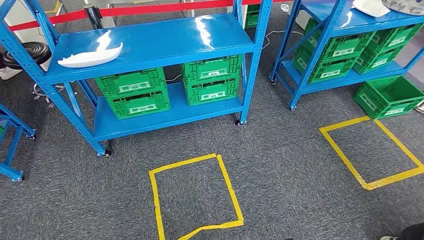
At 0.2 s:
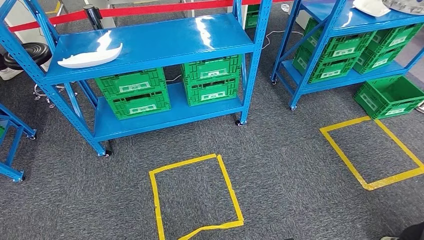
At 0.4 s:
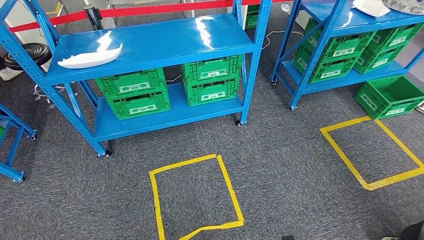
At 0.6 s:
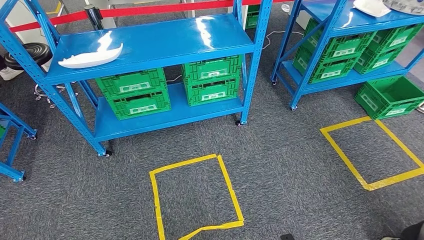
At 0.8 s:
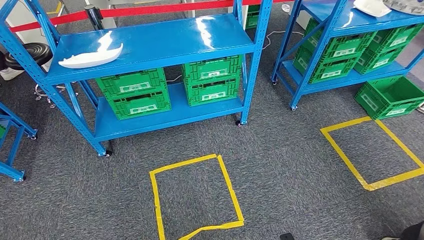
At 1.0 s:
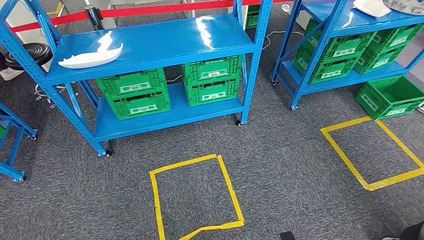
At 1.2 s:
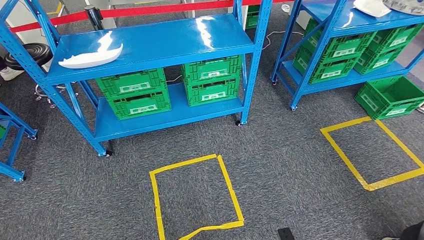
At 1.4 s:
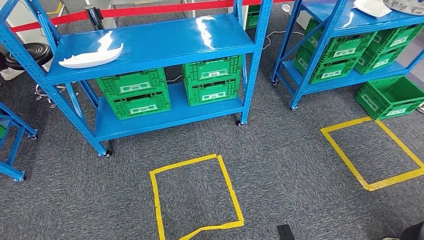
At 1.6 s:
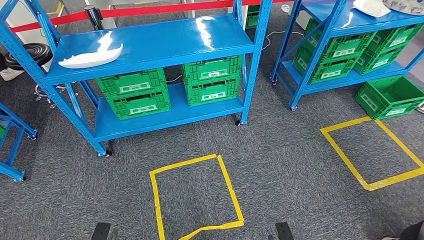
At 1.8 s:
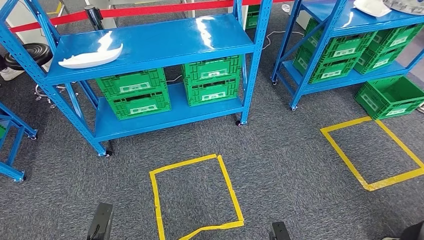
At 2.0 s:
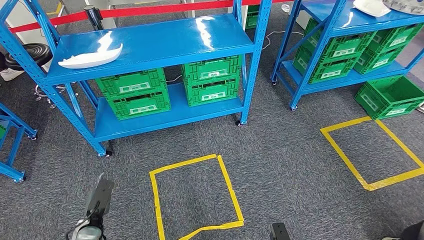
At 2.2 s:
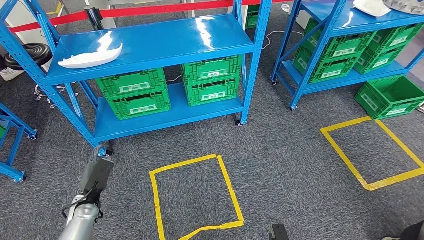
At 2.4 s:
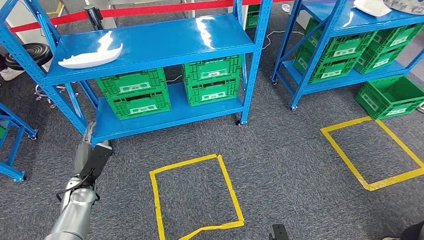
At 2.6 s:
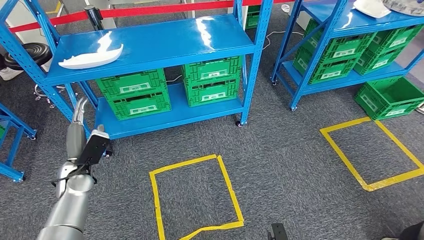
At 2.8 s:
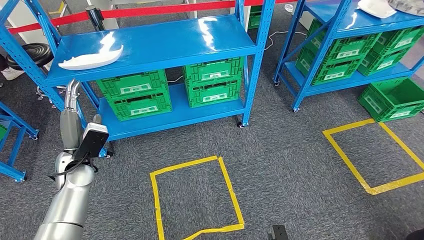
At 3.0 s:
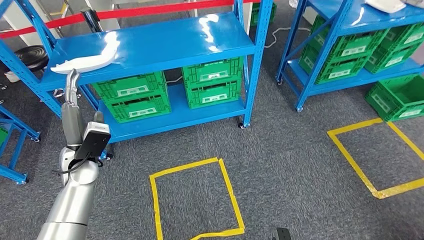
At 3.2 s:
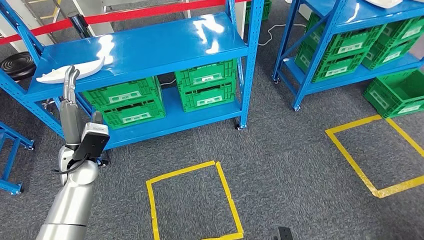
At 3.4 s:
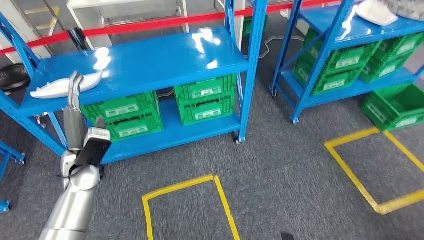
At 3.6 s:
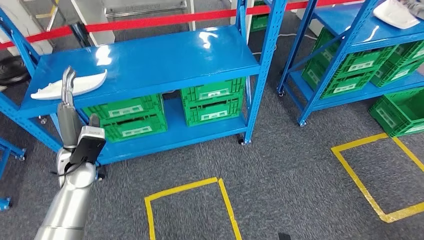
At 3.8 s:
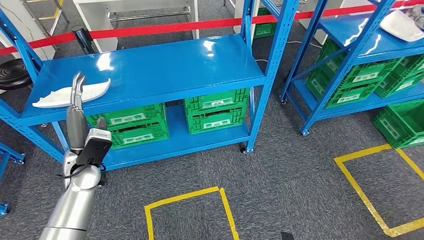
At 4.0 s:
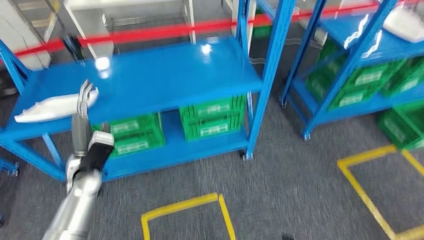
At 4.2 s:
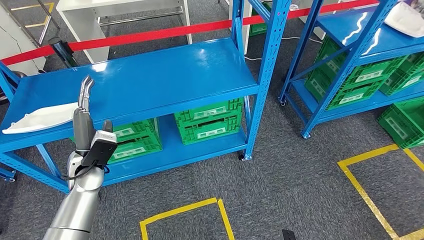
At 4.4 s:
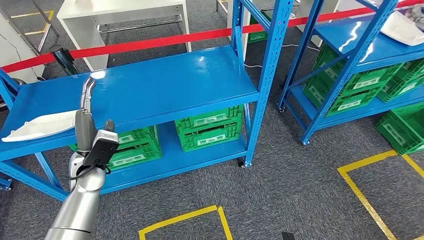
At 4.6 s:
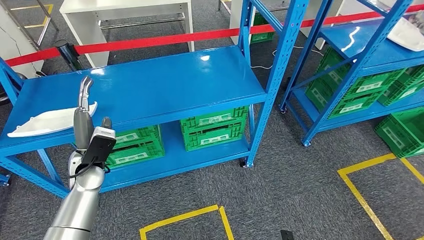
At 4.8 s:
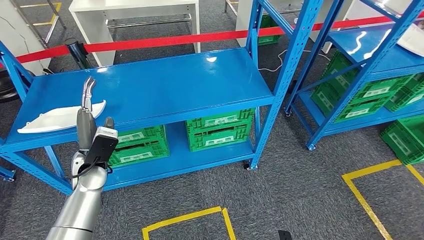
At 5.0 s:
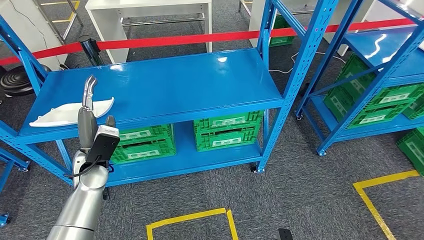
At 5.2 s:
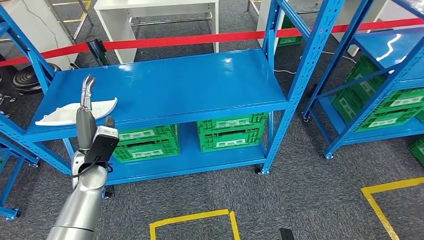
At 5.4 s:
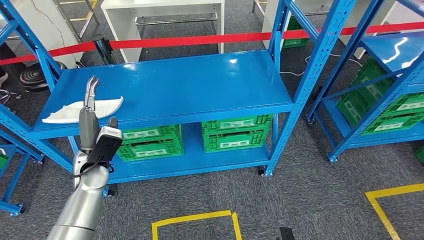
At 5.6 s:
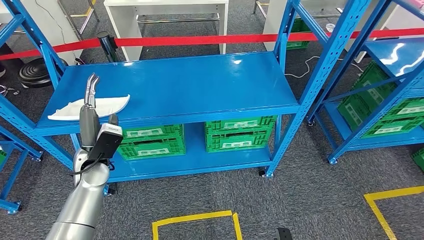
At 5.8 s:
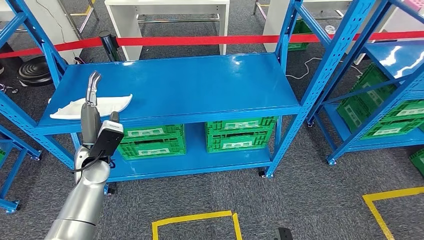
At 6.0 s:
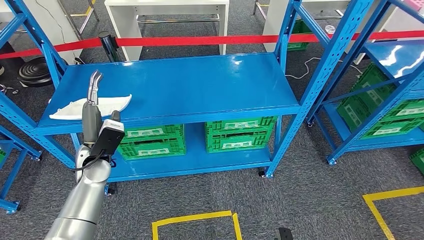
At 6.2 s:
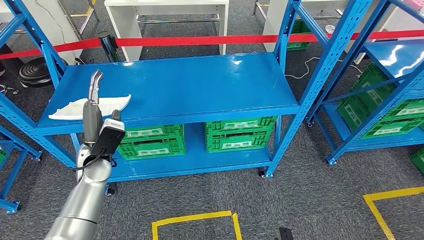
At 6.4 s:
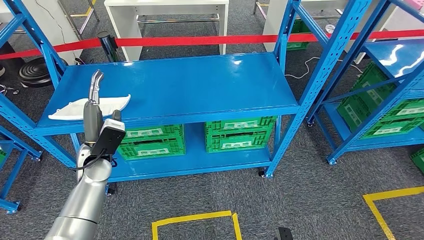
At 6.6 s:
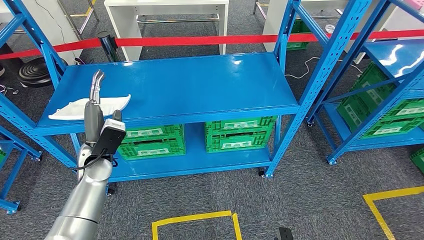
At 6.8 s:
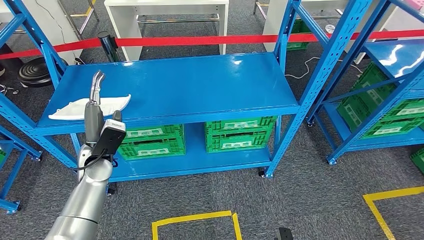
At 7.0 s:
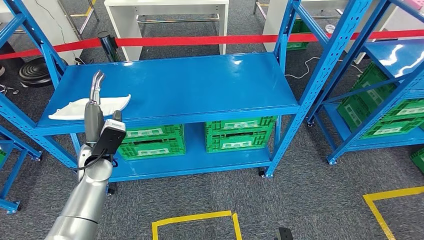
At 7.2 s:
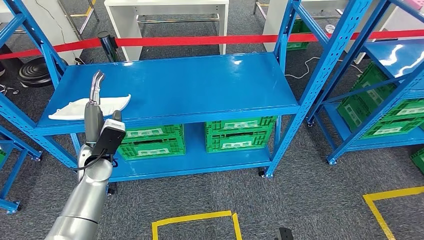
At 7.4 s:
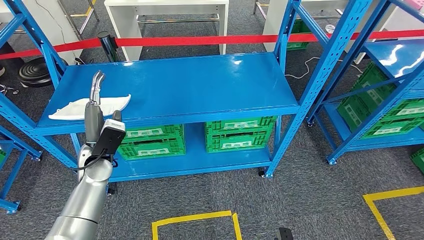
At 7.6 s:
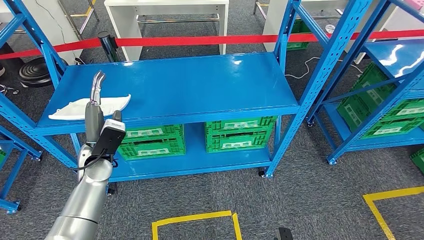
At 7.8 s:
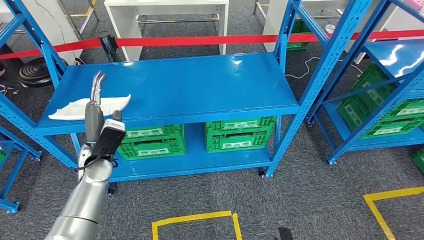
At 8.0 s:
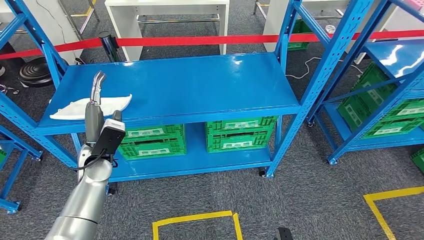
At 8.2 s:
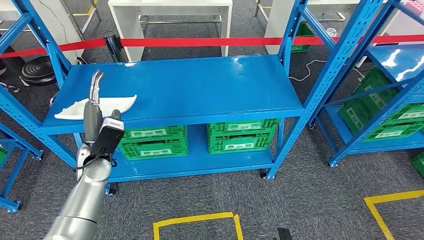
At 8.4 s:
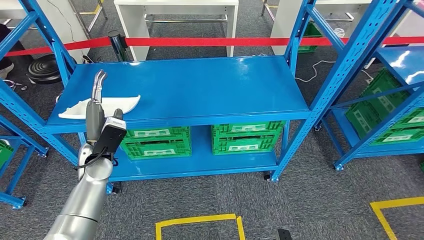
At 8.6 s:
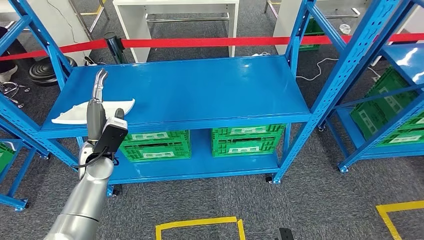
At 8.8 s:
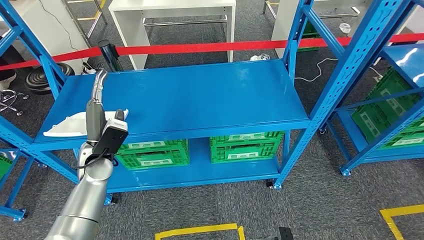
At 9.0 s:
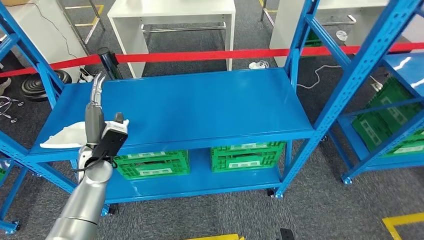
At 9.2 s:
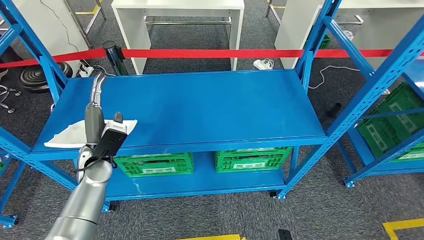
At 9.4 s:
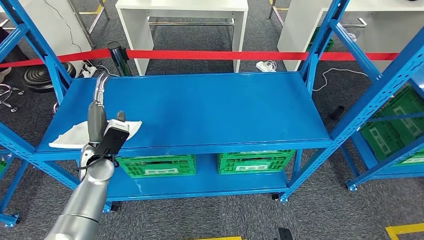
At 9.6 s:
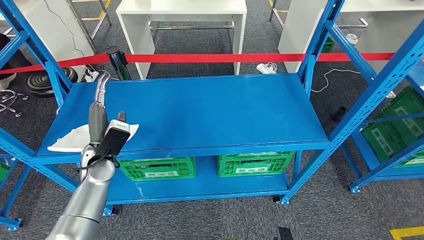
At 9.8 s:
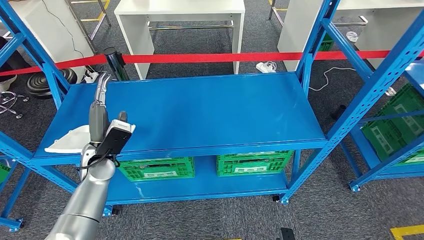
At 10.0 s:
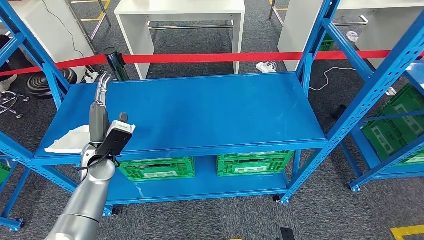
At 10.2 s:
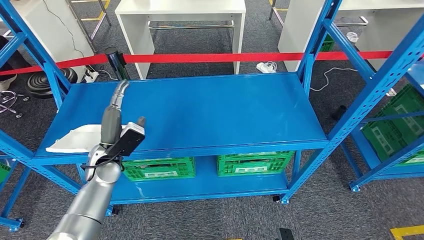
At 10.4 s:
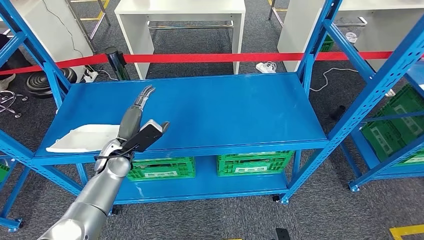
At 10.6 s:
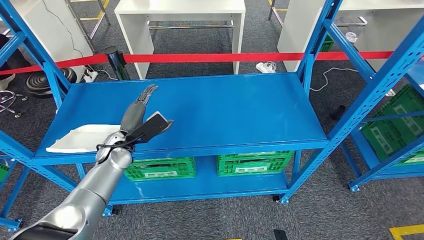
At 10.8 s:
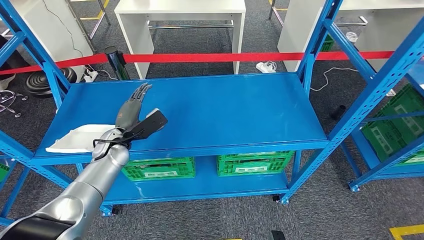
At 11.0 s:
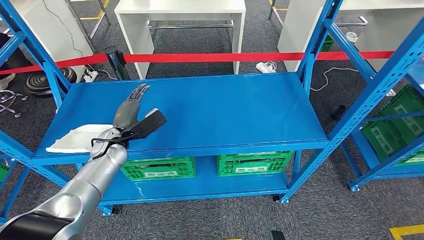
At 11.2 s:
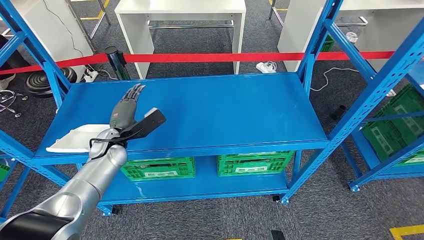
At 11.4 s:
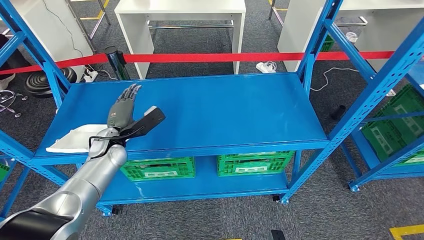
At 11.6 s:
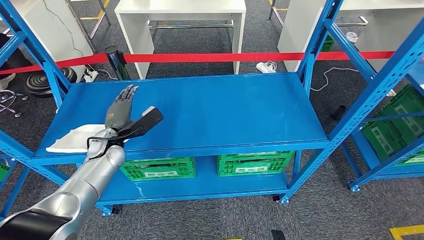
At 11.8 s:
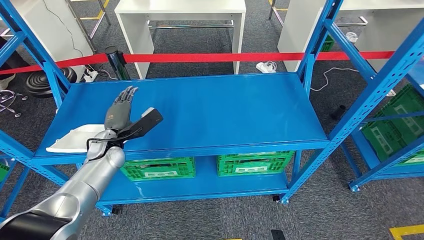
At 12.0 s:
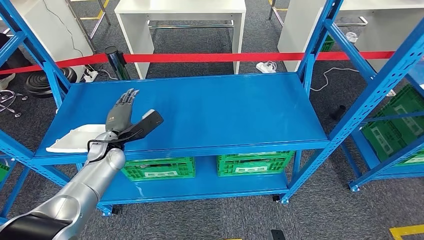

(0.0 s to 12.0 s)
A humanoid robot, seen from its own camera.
6.0 s - 7.6 s: Both hands stay about where they are.

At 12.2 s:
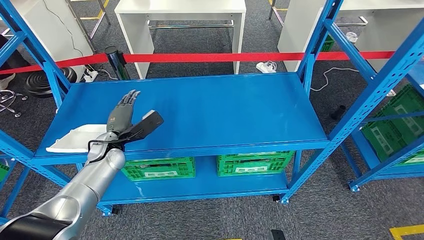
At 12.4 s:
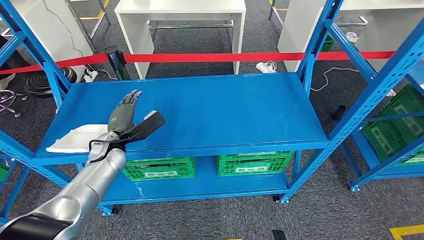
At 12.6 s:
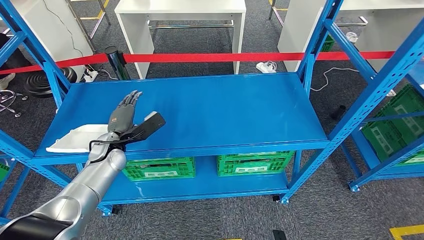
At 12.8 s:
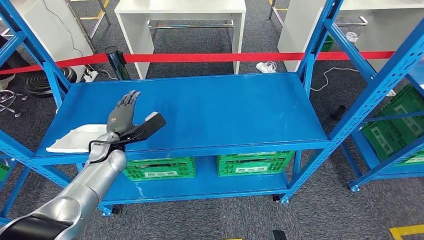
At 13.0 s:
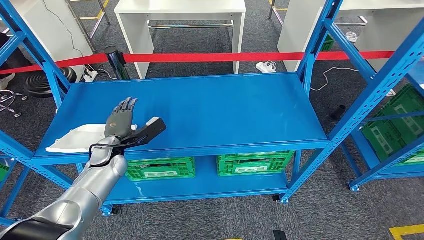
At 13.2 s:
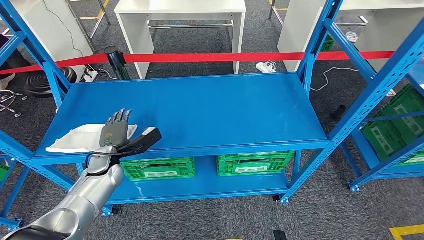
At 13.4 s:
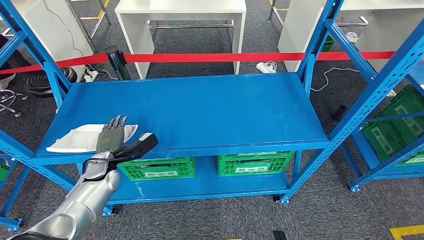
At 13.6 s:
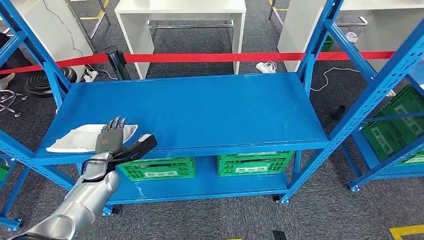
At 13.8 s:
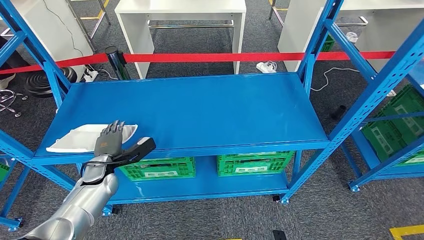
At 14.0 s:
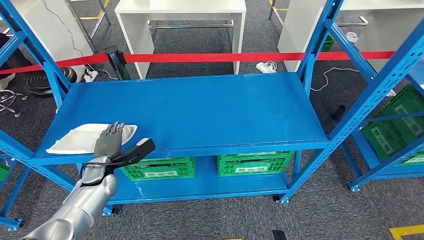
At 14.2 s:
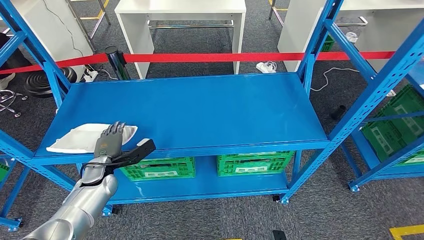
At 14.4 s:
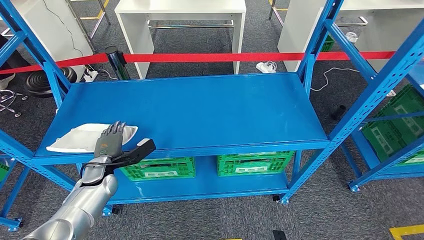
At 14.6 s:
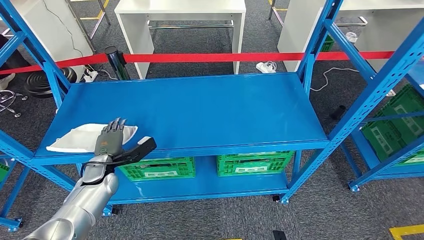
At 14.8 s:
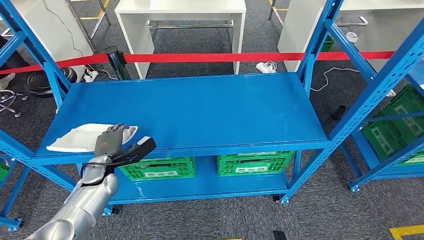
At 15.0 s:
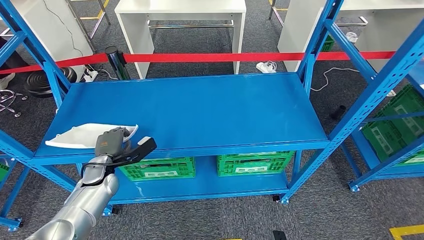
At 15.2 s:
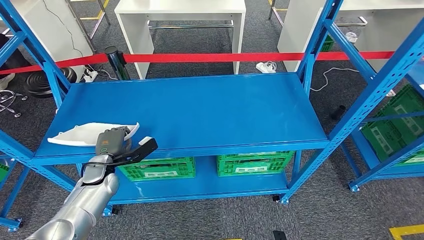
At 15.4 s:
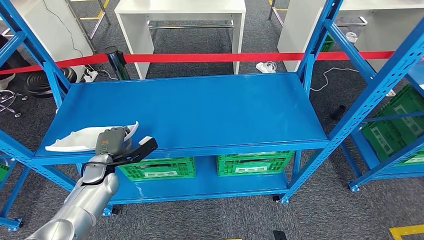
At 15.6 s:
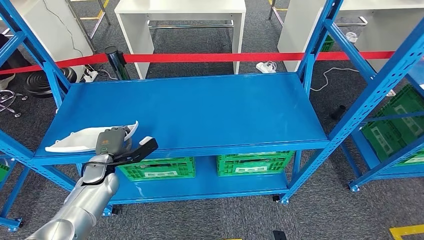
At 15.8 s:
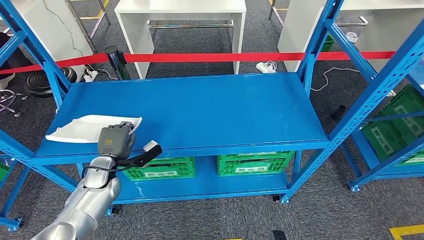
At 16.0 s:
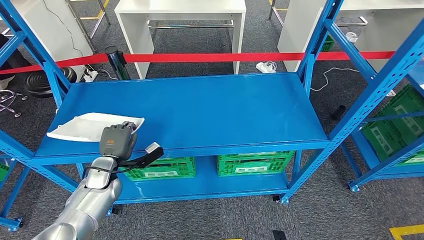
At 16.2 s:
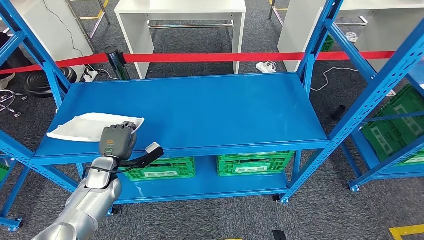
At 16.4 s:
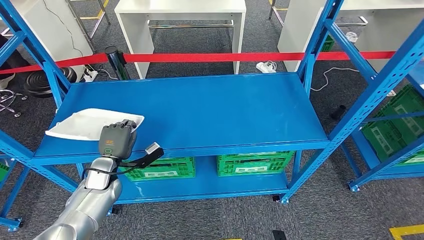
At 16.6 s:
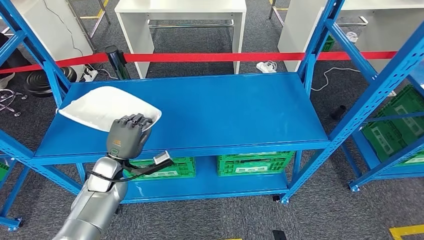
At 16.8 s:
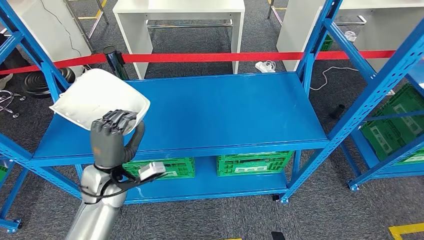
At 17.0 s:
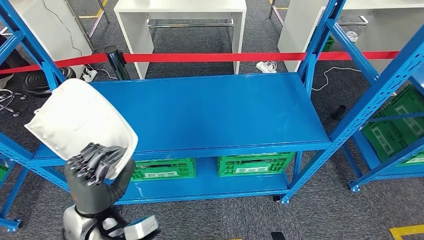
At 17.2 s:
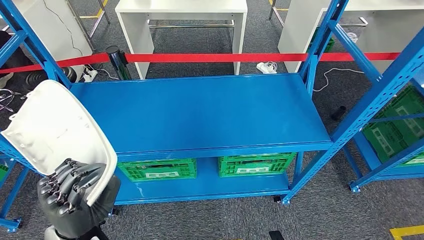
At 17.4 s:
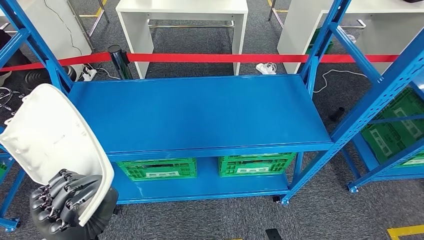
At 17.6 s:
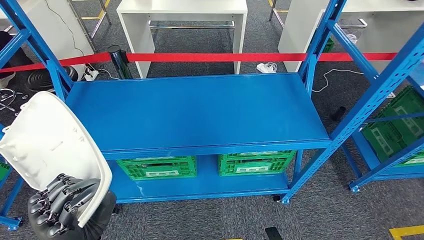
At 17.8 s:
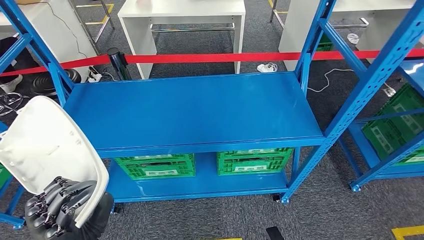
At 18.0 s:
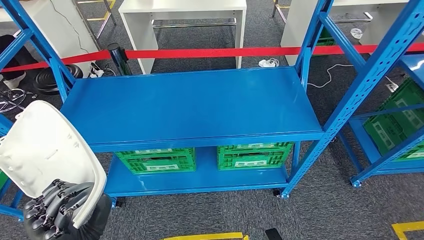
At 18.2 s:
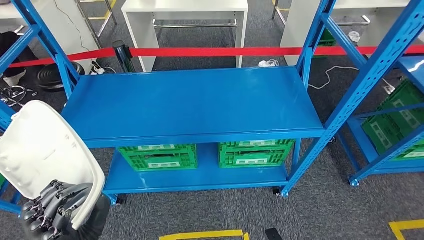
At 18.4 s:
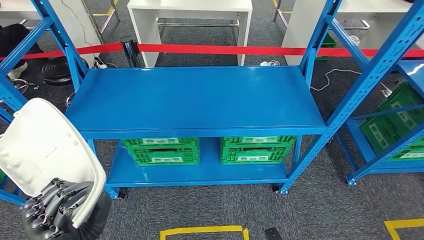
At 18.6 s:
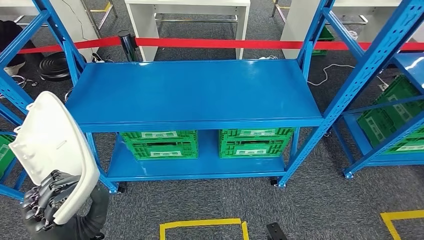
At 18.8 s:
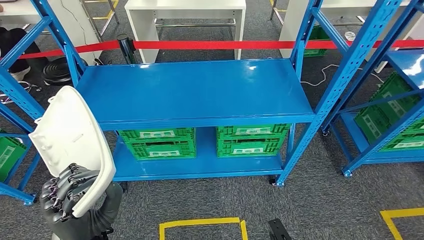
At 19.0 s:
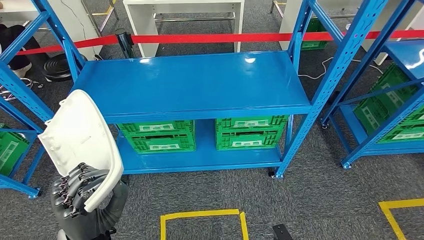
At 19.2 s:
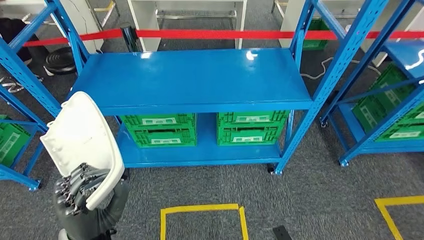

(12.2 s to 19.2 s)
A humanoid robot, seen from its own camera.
Step, 12.2 s - 17.8 s: Pick up the small component from the shelf.
12.2 s - 13.6 s: The left hand goes approximately 5 cm downward.
13.6 s - 15.0 s: Both hands stay about where they are.
